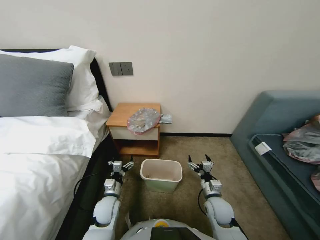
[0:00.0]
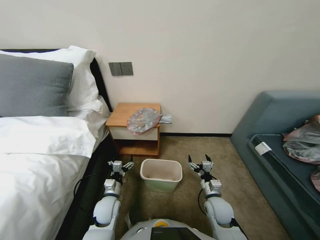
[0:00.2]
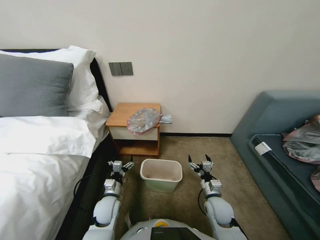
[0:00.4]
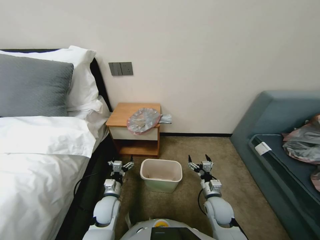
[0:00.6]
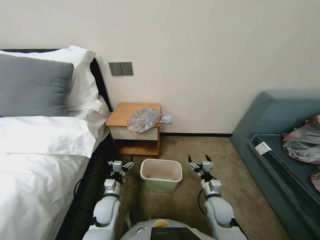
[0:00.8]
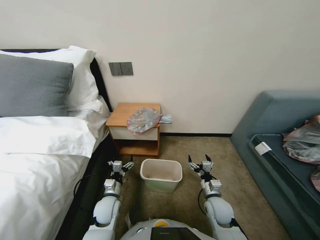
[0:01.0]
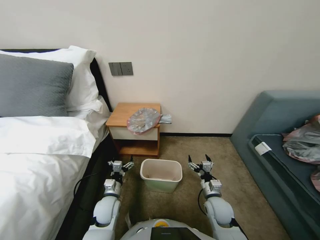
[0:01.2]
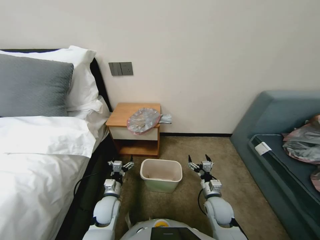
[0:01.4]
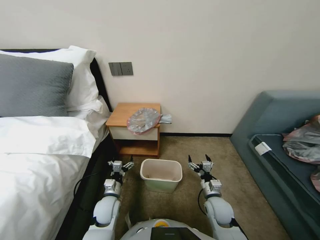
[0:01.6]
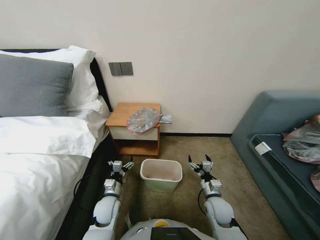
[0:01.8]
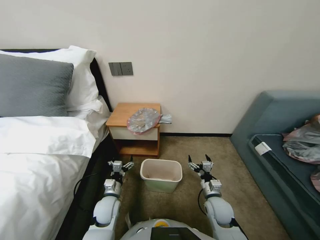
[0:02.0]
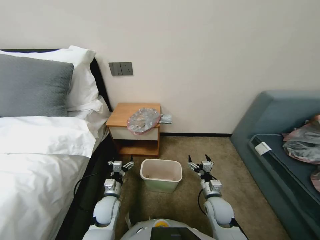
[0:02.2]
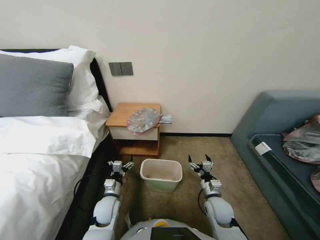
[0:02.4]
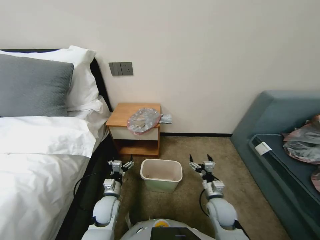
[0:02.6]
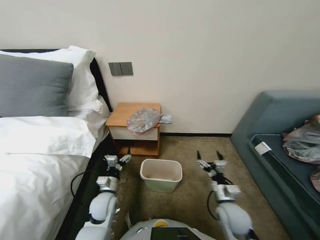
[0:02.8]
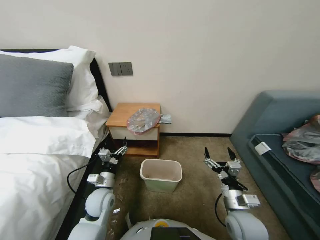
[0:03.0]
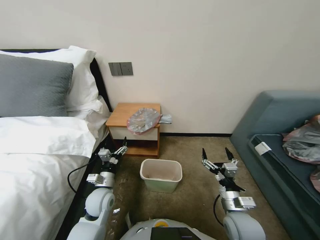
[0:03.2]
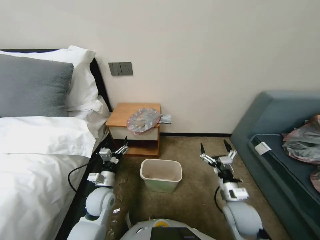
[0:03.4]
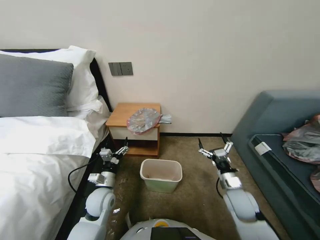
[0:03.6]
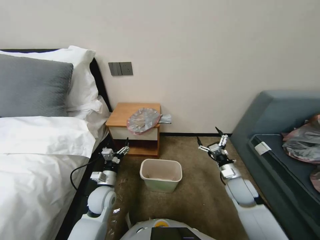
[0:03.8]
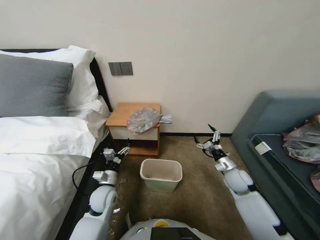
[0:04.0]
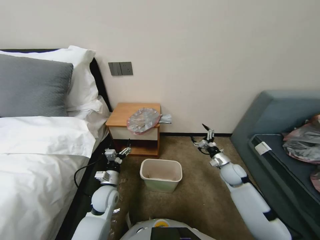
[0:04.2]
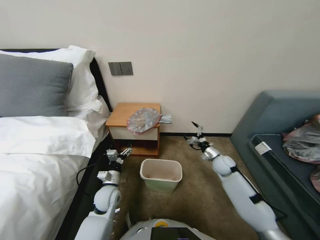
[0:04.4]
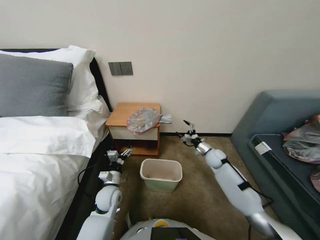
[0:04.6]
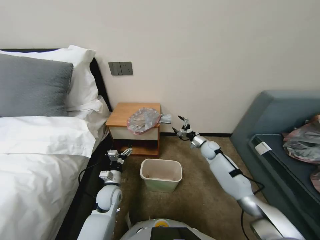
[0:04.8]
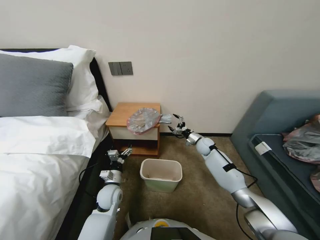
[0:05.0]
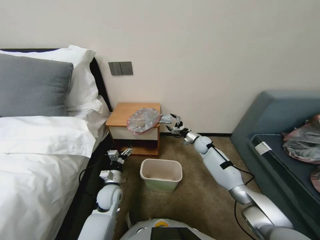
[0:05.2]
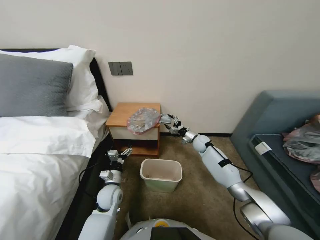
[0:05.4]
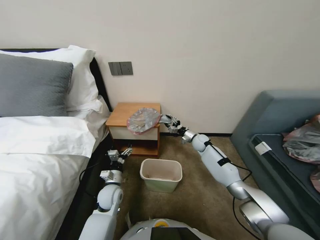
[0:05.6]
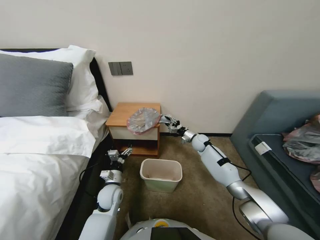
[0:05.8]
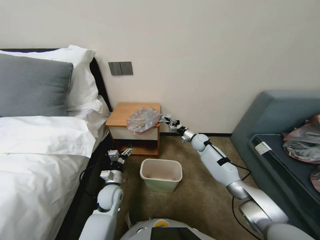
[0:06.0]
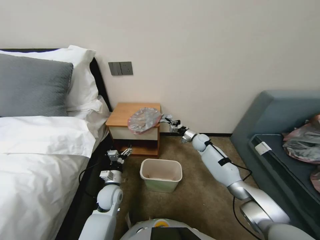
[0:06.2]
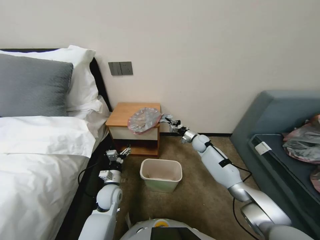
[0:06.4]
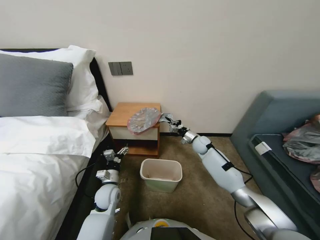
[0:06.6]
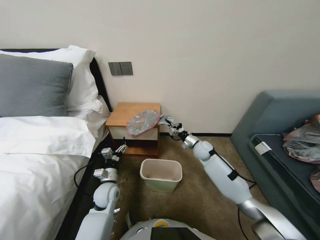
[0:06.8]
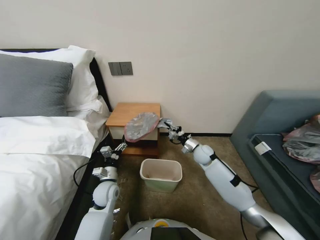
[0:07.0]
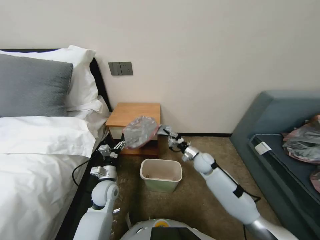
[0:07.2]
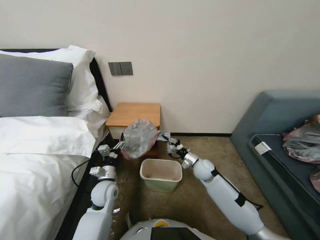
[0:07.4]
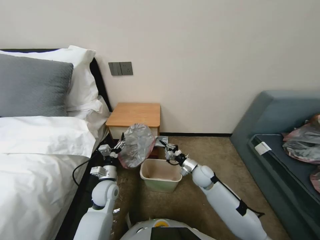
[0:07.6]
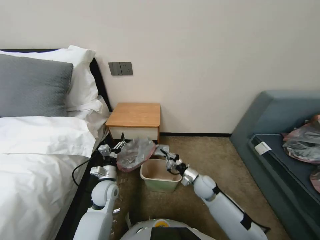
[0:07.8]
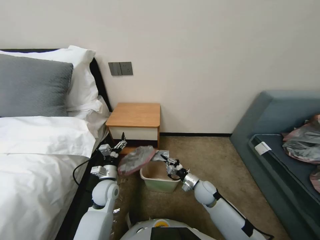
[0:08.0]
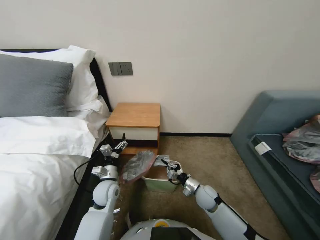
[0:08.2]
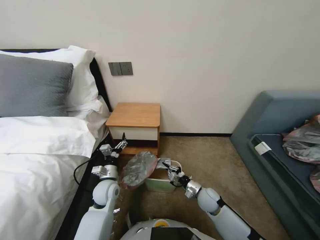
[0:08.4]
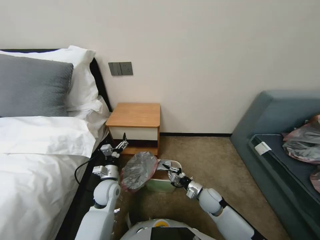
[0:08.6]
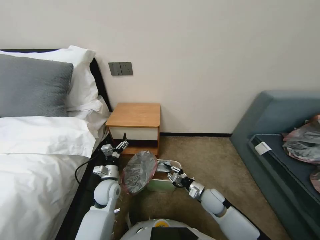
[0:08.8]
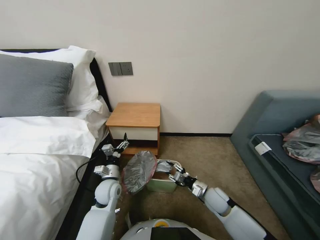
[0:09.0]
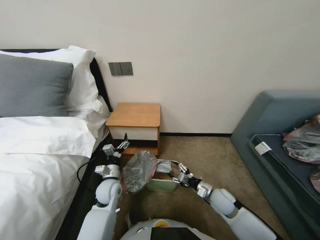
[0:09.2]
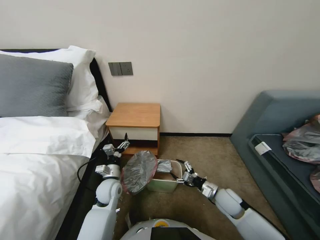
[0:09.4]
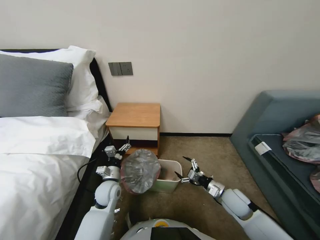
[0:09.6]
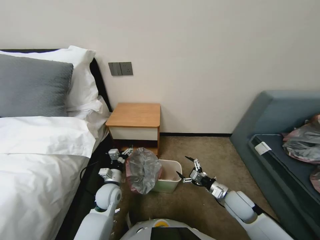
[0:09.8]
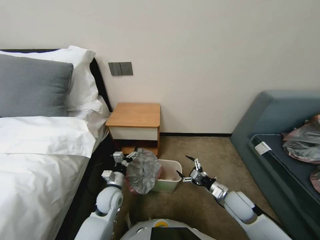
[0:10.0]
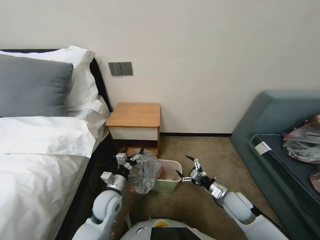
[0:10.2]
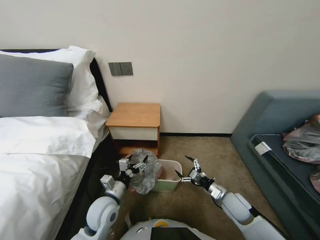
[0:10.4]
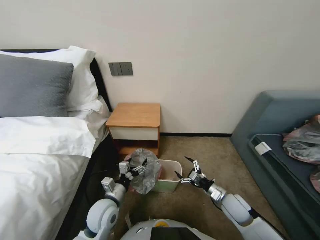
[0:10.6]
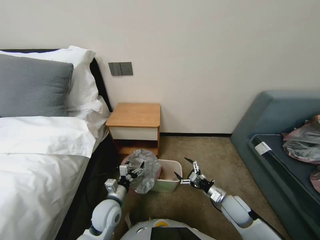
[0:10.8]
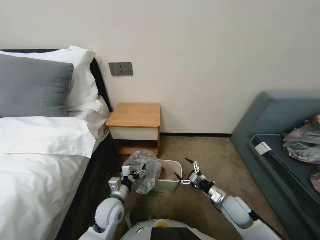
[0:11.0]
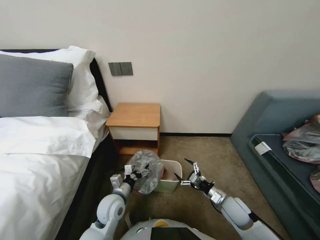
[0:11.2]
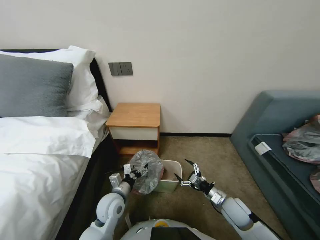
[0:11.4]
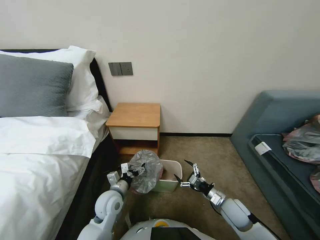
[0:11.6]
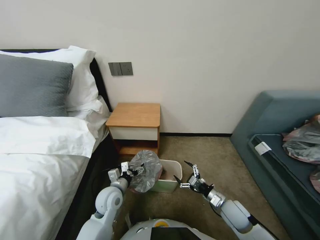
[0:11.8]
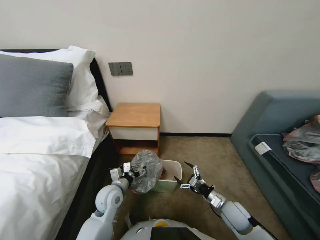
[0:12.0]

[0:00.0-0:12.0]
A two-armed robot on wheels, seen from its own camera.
Task of the whole recording: Pick up the garbage bag from the table and place it over the trash can.
0:01.6 to 0:03.0: The left gripper shifts by some 5 cm; the right gripper heads upward and backward, covering some 10 cm.
0:03.0 to 0:04.4: The right gripper is displaced forward by approximately 20 cm.
0:04.4 to 0:06.0: The right gripper heads forward and to the left, covering about 20 cm, and closes its fingers.
0:06.0 to 0:07.6: The right gripper shifts some 20 cm backward.
0:07.6 to 0:09.0: The right gripper heads backward, covering some 10 cm.
0:09.0 to 0:10.4: The left gripper travels backward by about 5 cm, while the right gripper moves to the right, approximately 5 cm, and opens its fingers.

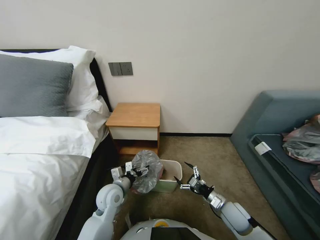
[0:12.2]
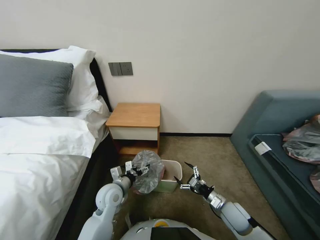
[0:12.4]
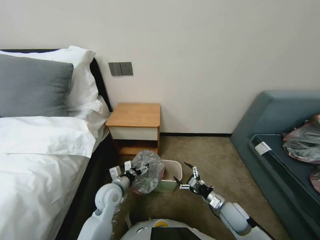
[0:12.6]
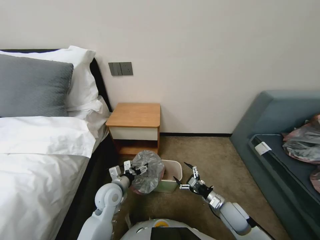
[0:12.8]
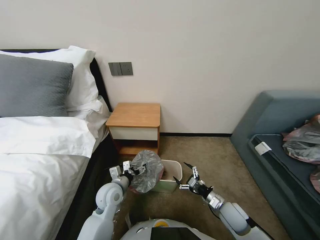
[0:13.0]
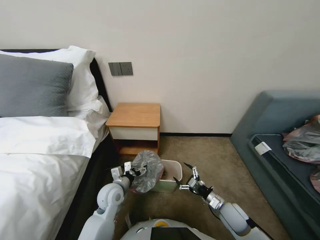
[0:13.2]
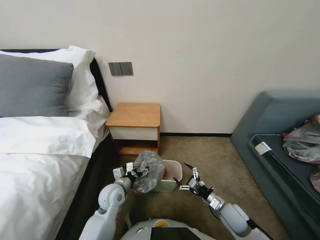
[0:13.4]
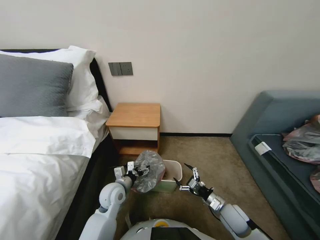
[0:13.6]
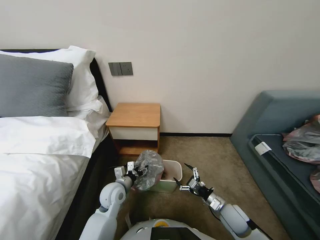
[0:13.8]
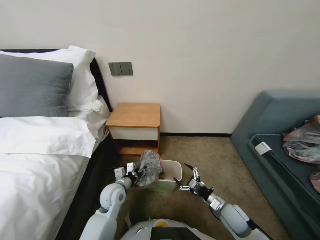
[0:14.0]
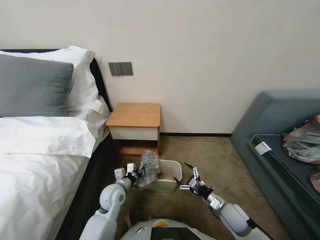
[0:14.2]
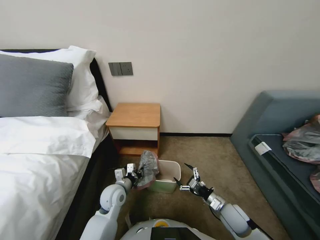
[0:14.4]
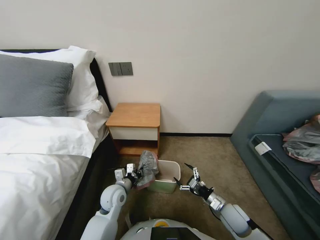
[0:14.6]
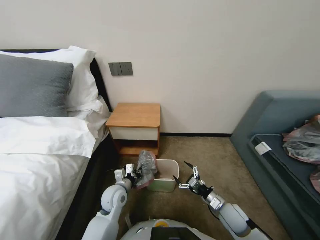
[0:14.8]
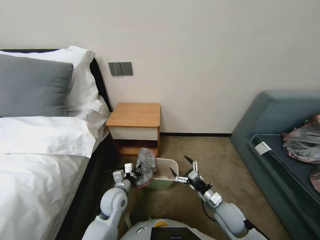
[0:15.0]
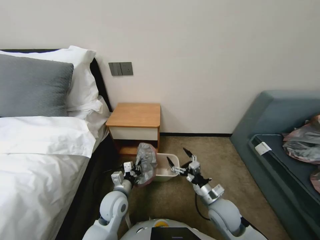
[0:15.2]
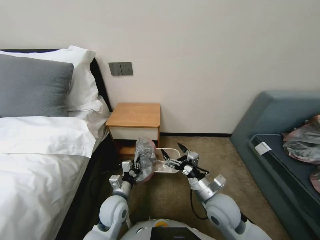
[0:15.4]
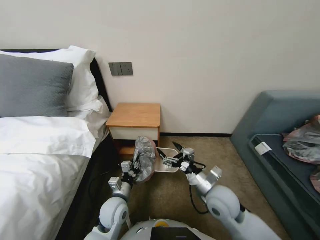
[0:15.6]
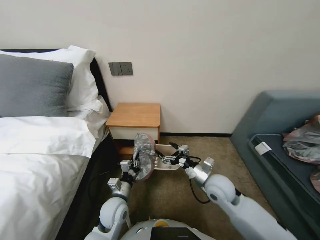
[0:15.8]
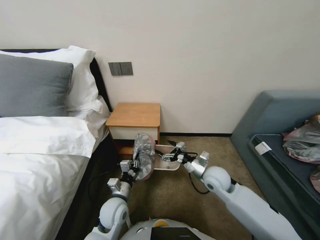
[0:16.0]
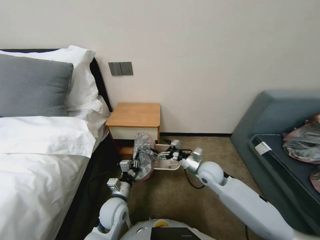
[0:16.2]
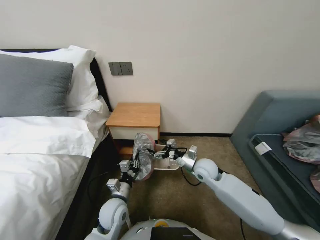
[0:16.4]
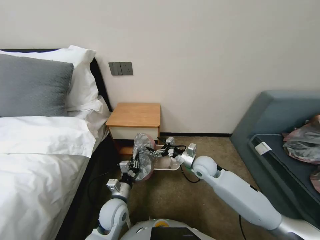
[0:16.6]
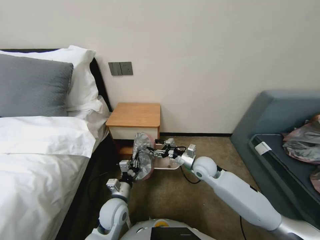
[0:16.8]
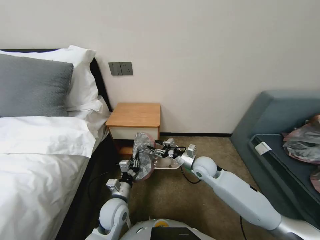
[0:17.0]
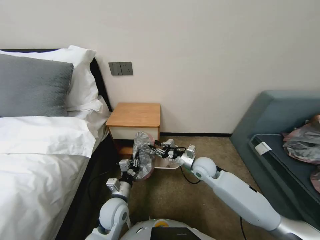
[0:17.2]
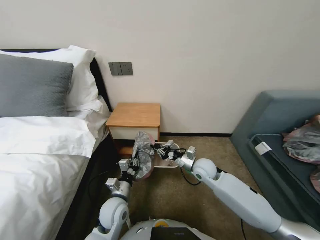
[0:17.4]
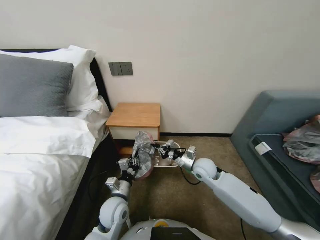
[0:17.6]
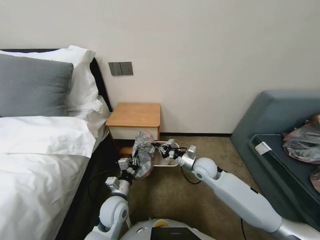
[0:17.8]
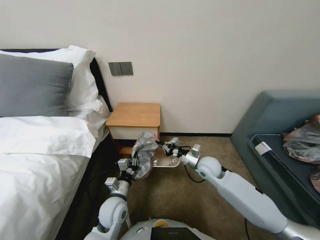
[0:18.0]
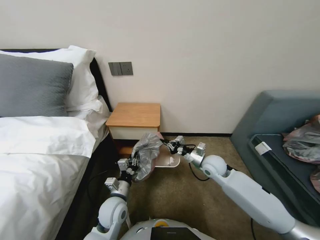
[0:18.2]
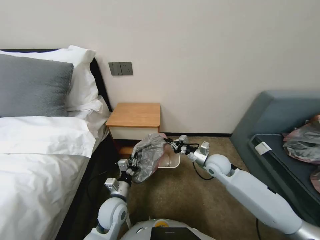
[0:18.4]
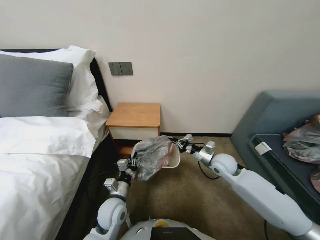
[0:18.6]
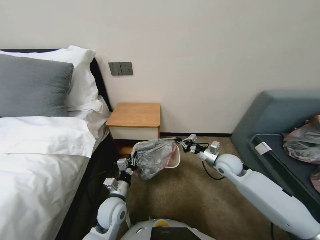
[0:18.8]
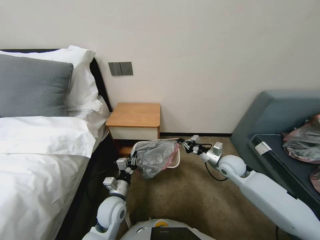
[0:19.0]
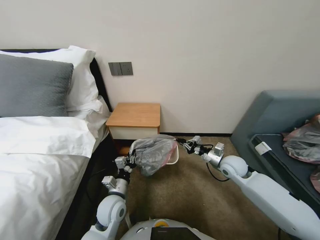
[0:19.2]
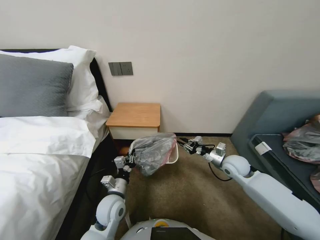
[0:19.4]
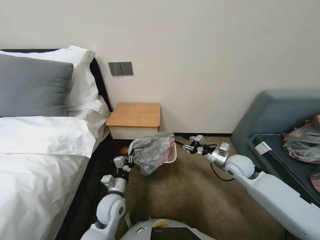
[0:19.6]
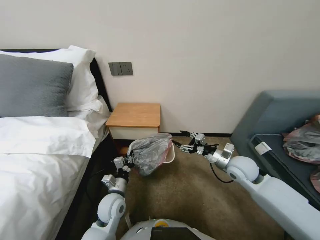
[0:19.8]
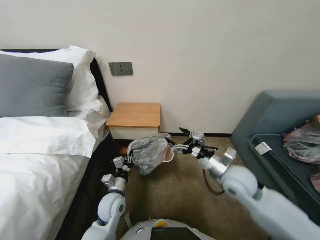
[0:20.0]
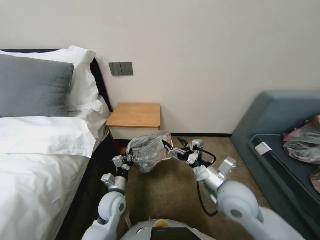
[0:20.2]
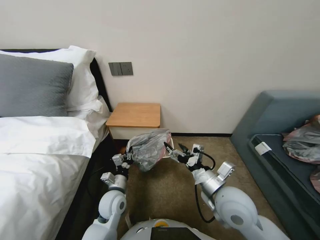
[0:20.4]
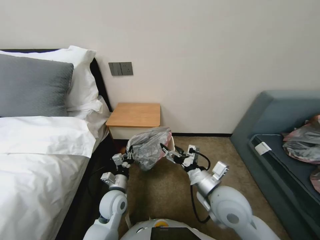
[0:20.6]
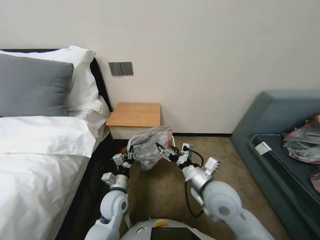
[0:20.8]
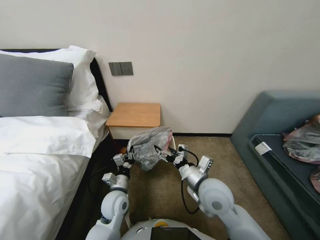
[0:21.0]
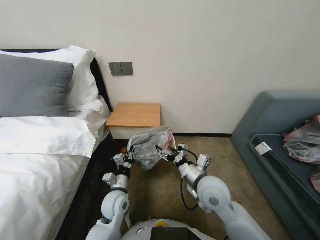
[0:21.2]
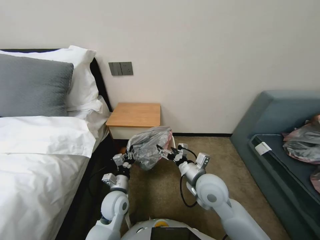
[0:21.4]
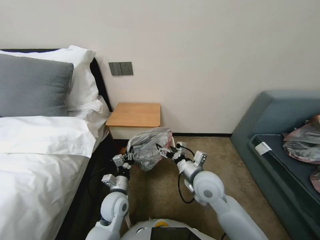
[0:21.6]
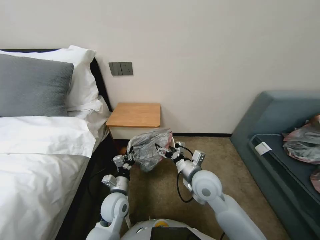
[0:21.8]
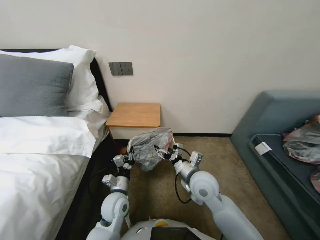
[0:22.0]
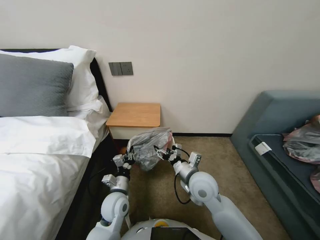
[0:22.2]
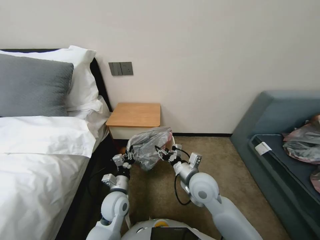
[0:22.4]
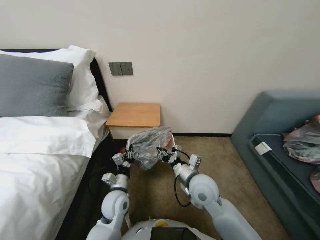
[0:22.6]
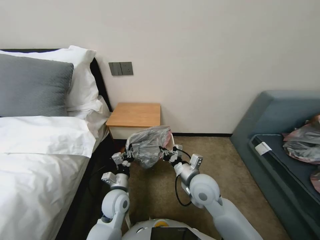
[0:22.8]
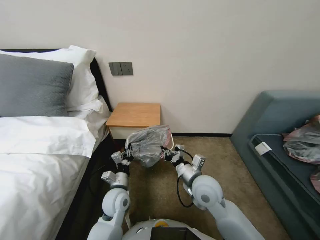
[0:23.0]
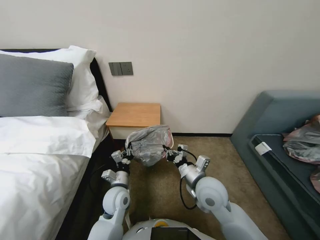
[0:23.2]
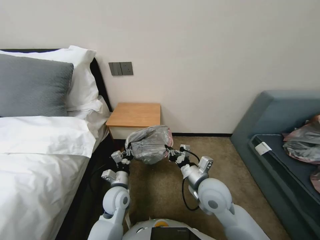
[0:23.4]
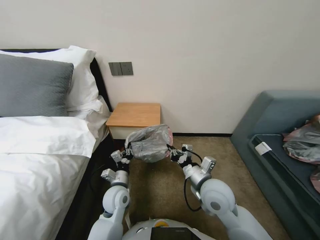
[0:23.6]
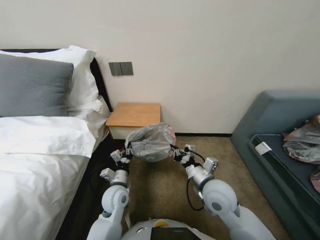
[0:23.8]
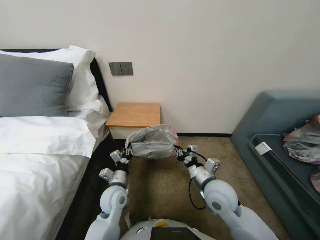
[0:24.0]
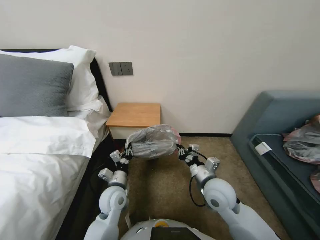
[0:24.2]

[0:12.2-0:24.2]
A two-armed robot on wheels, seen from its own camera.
Task of the whole recording: Pick up the garbage bag from the table and place it over the trash can.
0:12.2 to 0:13.8: The grippers move only a little.
0:13.8 to 0:15.2: The left gripper closes; the right gripper travels to the left and upward by about 10 cm.
0:15.2 to 0:16.6: The right gripper is displaced forward and upward by about 15 cm.
0:16.6 to 0:18.2: The right gripper closes up.
0:18.2 to 0:19.8: The right gripper travels to the right by roughly 10 cm, and opens.
0:19.8 to 0:21.2: The right gripper goes some 20 cm to the left and backward.
0:21.2 to 0:22.6: The right gripper closes its fingers.
0:22.6 to 0:24.2: The right gripper changes place by about 5 cm.
